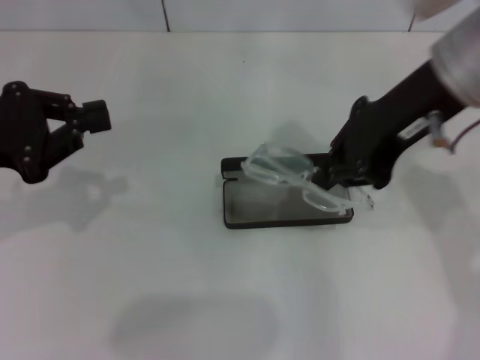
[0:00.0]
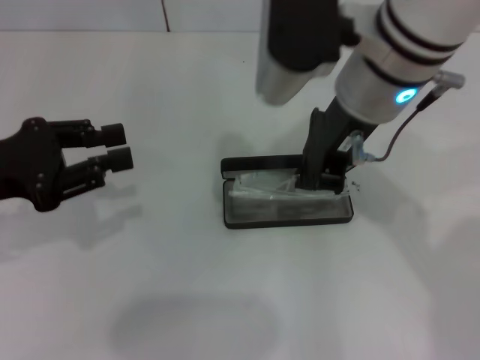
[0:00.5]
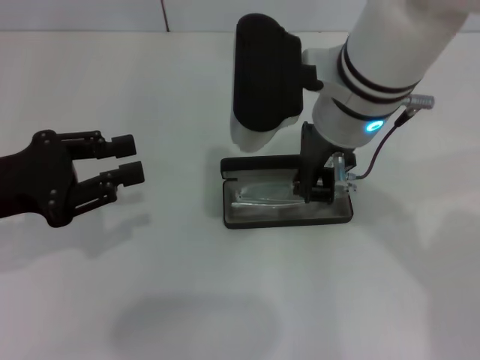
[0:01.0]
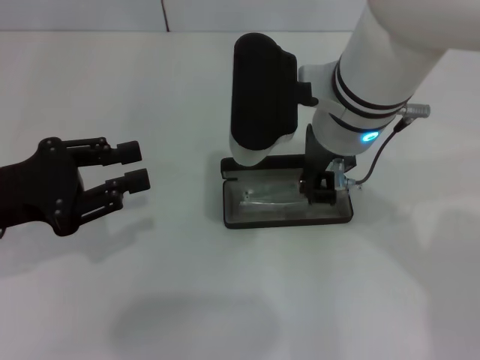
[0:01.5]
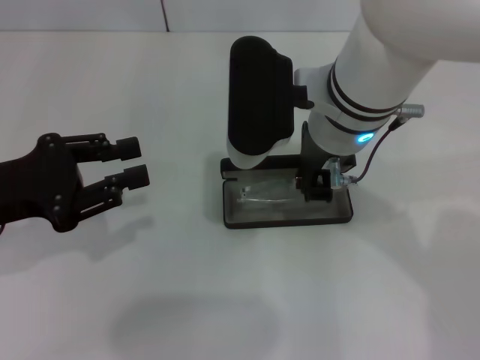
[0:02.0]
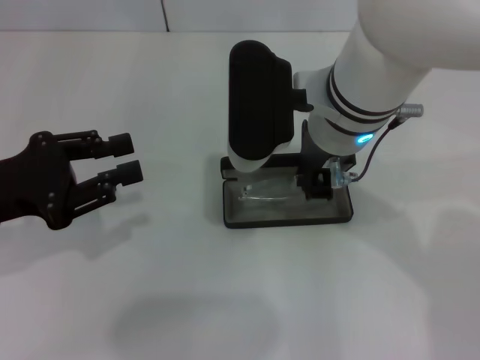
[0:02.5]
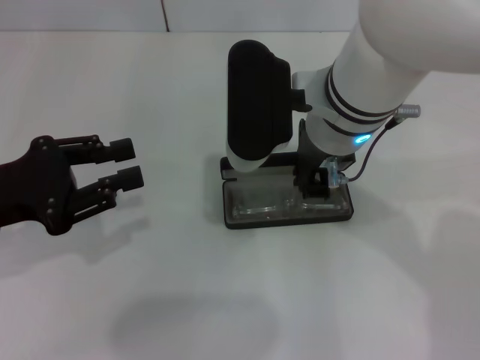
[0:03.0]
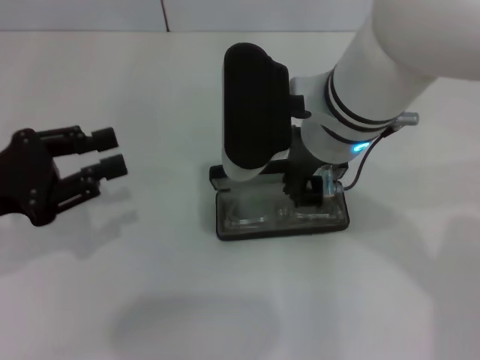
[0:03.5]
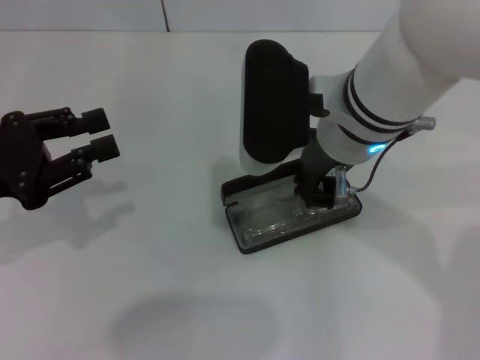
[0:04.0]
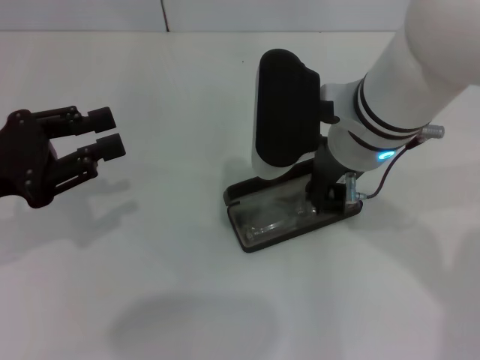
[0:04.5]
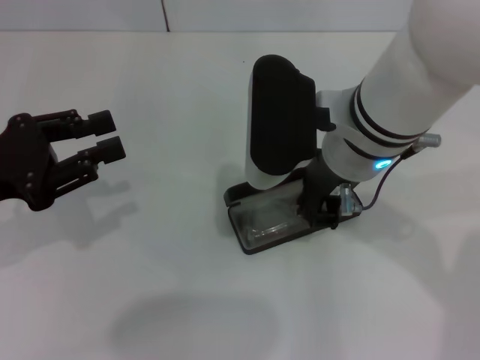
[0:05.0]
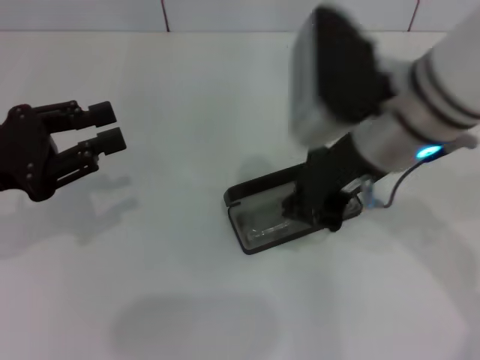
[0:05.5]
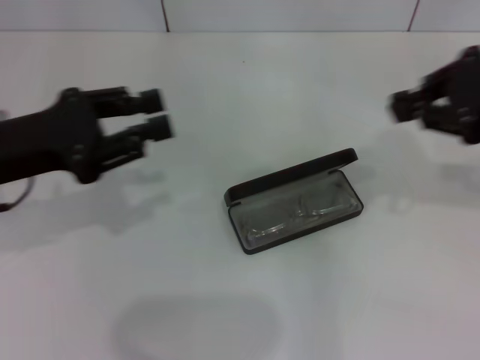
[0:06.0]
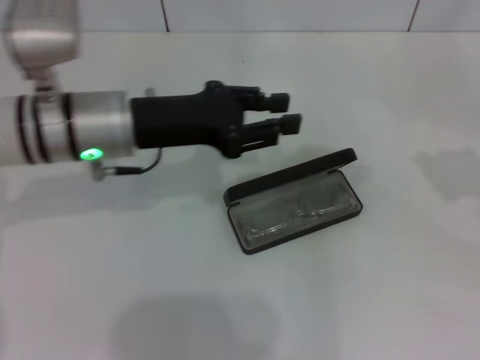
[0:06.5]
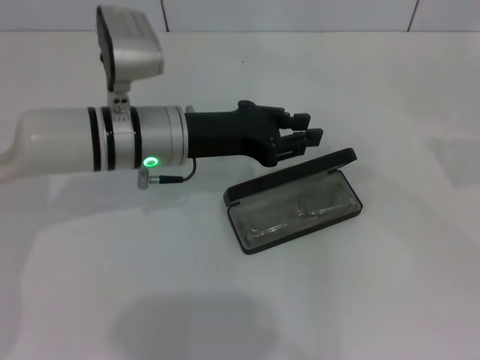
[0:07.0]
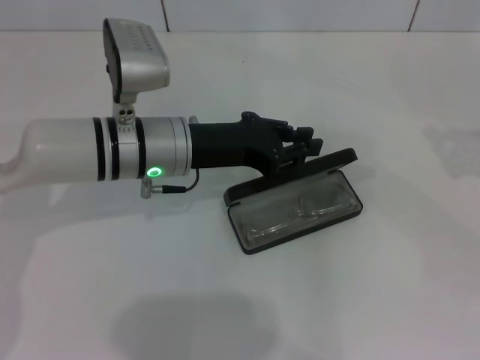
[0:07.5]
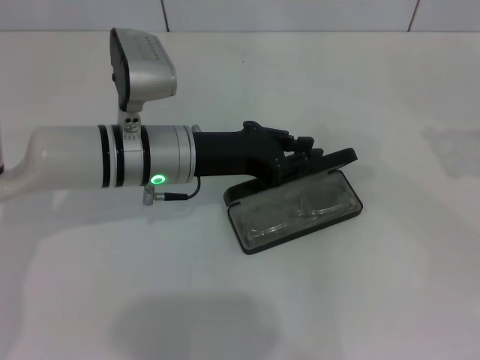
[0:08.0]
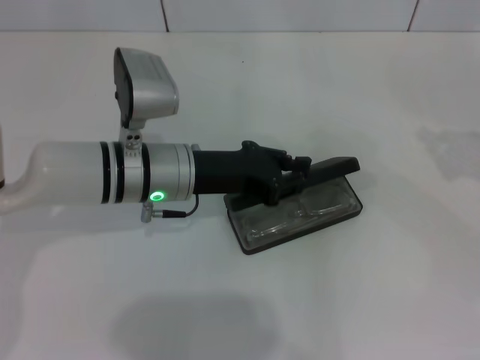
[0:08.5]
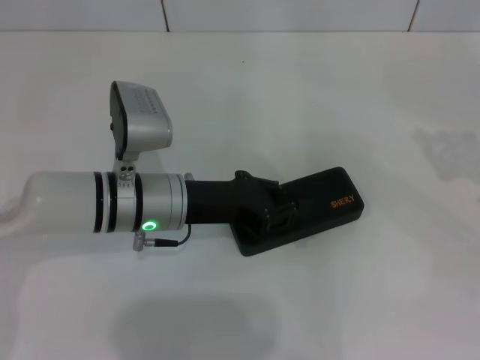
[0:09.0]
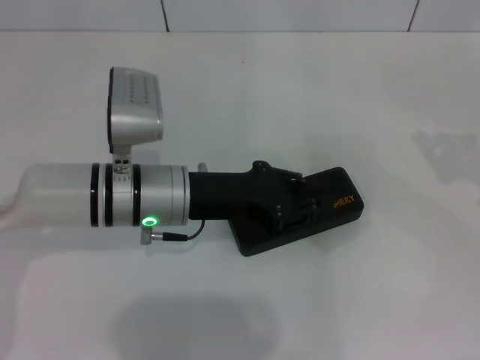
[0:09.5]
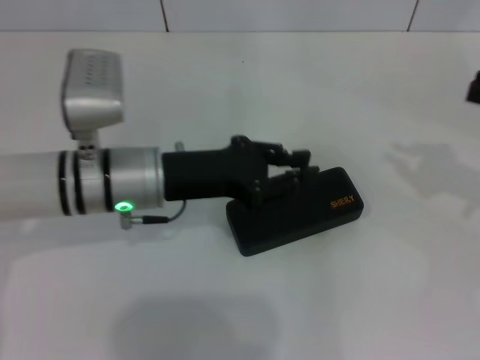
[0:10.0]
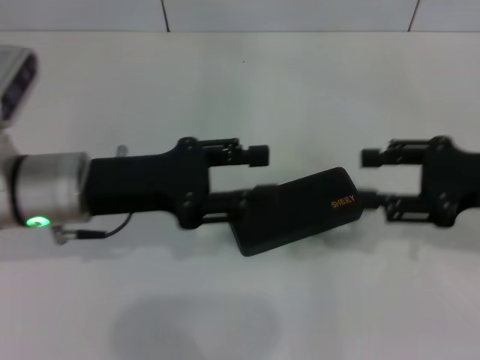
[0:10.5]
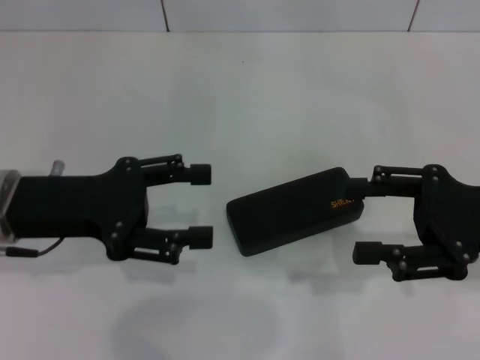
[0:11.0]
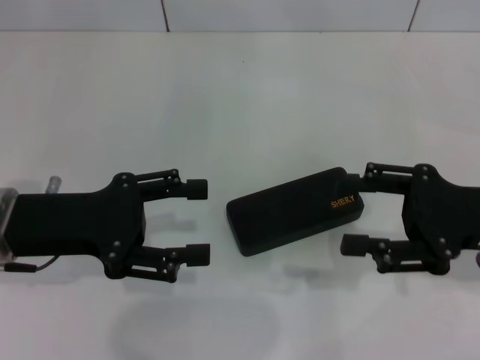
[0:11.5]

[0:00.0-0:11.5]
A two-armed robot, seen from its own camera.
Step, 0:00.0 to 0:05.5: Put the glasses into the case with your right hand.
Step, 0:06.0 to 0:09.0: Close the glasses case with your left hand.
0:00.0 to 0:02.0: The right gripper travels to the left and downward by roughly 10 cm; the left gripper opens its fingers.
0:02.0 to 0:04.0: There are only small adjustments of the grippers.
0:04.0 to 0:06.0: The right gripper shifts some 20 cm to the right.
0:06.0 to 0:07.5: The right gripper moves to the right and downward, about 15 cm, while the left gripper shifts roughly 15 cm to the right and forward.
0:07.5 to 0:09.5: The grippers stay close to where they were, moving slightly.
0:09.5 to 0:11.5: Both grippers travel together to the left, roughly 10 cm. The left gripper opens up. The right gripper opens up.

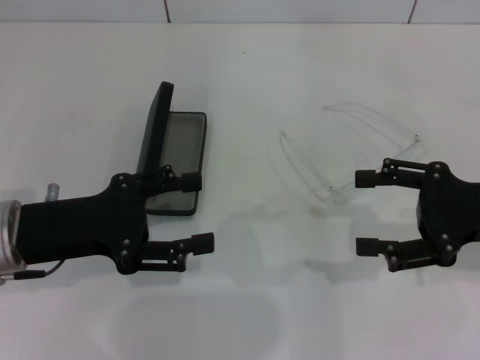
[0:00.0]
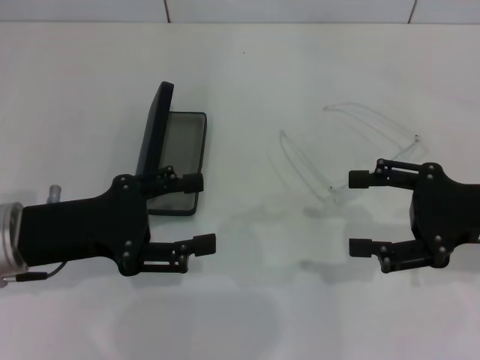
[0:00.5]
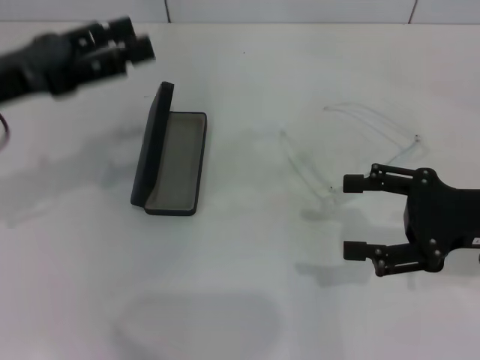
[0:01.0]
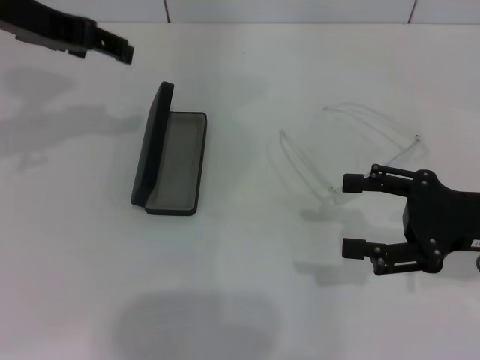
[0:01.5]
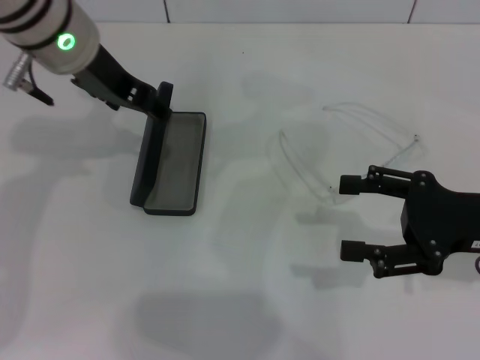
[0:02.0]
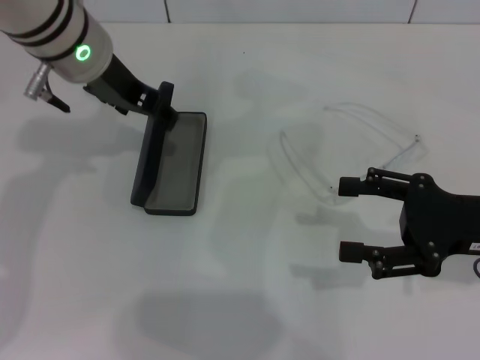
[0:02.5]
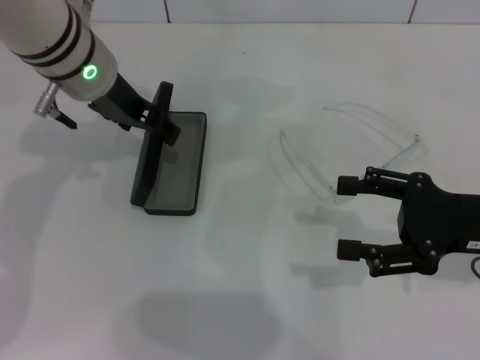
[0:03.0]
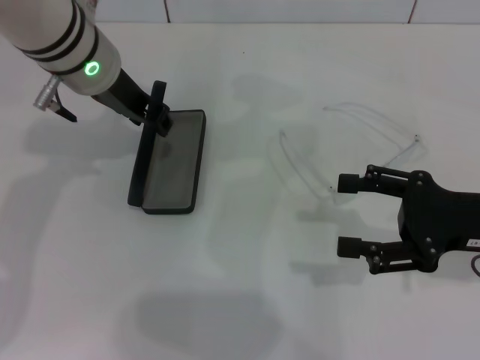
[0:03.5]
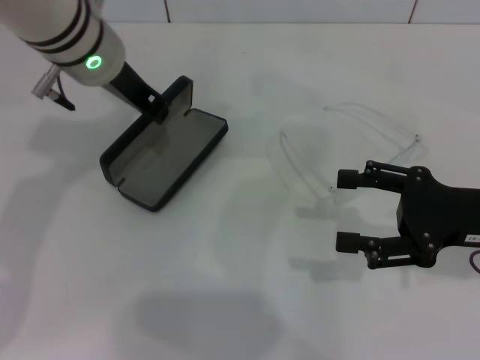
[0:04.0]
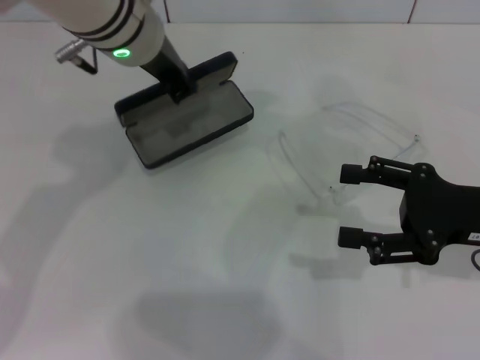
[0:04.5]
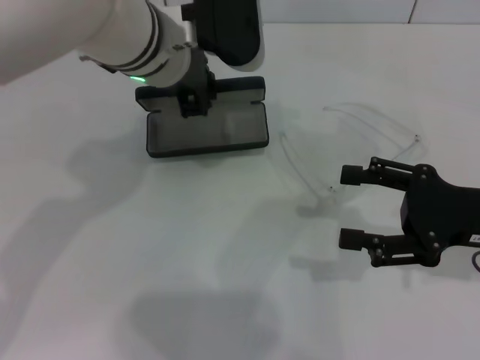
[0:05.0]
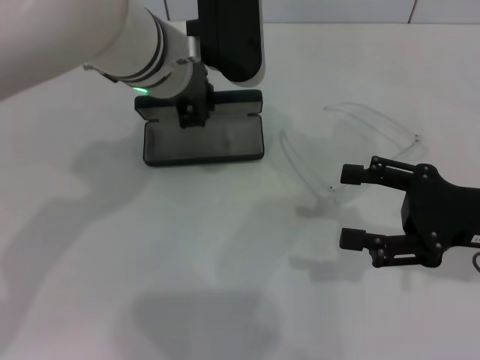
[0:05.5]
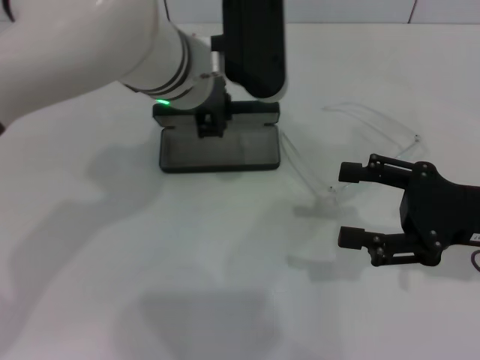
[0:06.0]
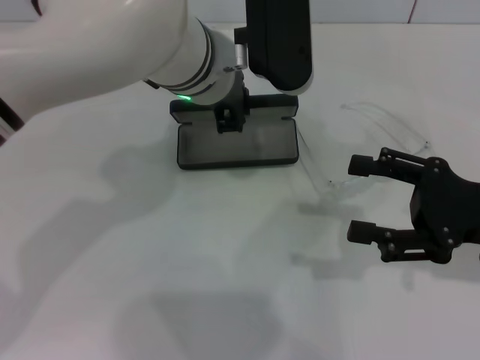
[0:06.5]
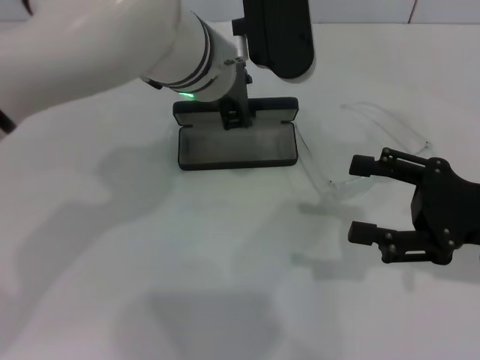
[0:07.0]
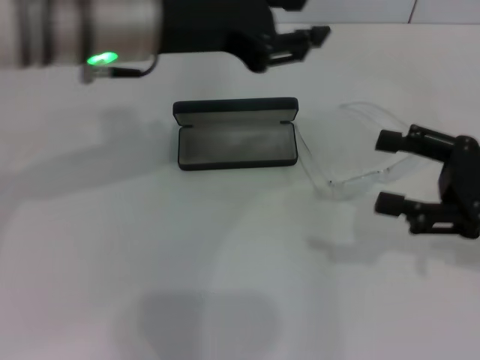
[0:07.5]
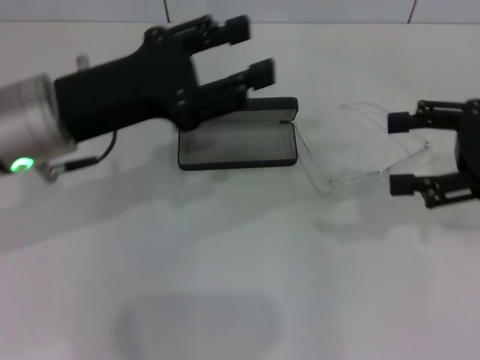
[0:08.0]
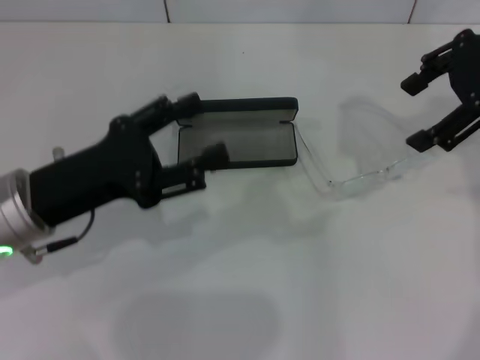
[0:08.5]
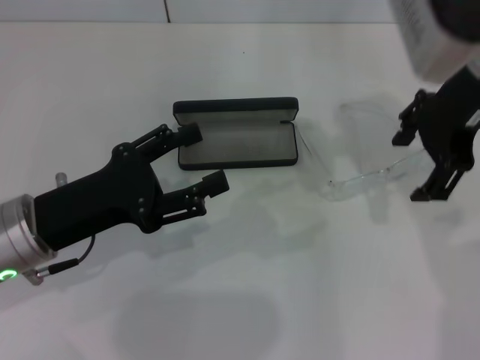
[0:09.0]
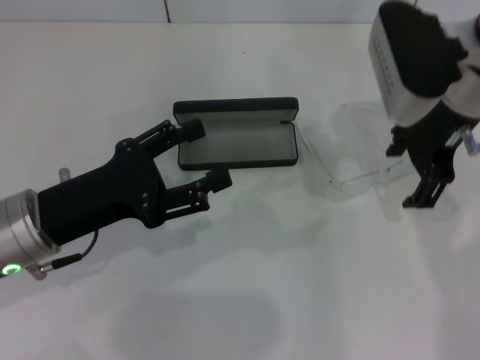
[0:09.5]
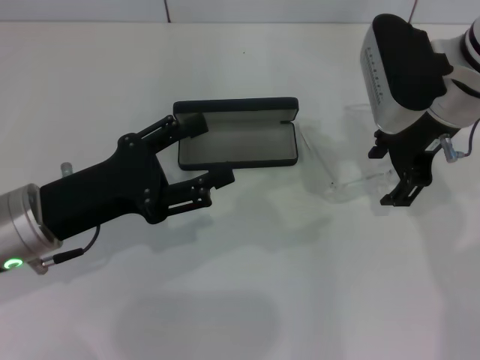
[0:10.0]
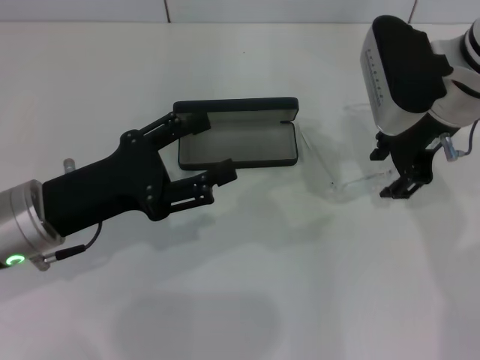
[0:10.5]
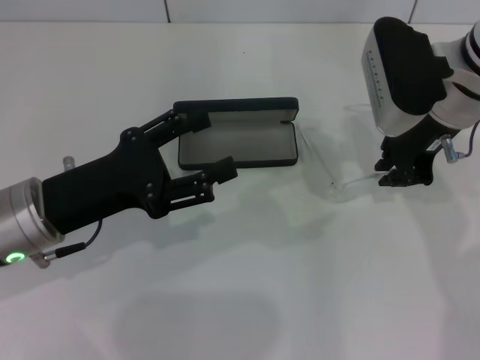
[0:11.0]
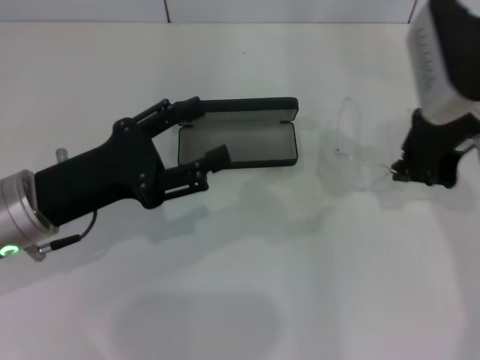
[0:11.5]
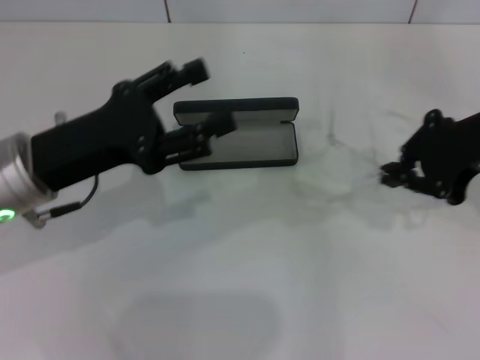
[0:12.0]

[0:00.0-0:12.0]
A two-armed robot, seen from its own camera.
Step, 0:00.0 to 0:03.5: Grab the glasses case with your left hand.
Step, 0:04.0 to 0:07.0: Place the glasses case in the center of the table with your left hand.
Step, 0:07.5 to 0:11.0: Grab the eyeglass frame with your right hand.
0:00.0 to 0:02.0: The left gripper travels forward, upward and to the right by about 20 cm.
0:02.0 to 0:04.0: The left gripper closes.
0:04.0 to 0:06.0: The left gripper moves to the right, approximately 10 cm.
0:06.0 to 0:08.0: The right gripper is displaced upward by some 10 cm, while the left gripper shifts some 15 cm to the left and backward, and opens up.
0:08.0 to 0:10.0: The right gripper heads to the left and forward, covering some 15 cm, while the left gripper shifts about 10 cm downward.
0:10.0 to 0:12.0: The right gripper moves to the right and backward, some 10 cm, and closes.

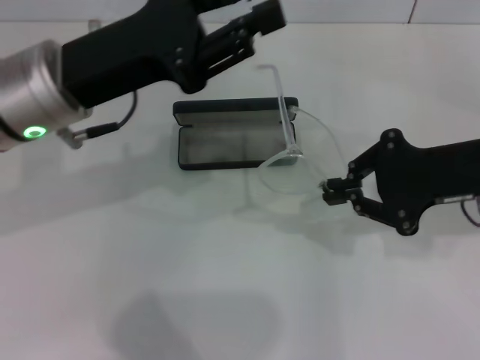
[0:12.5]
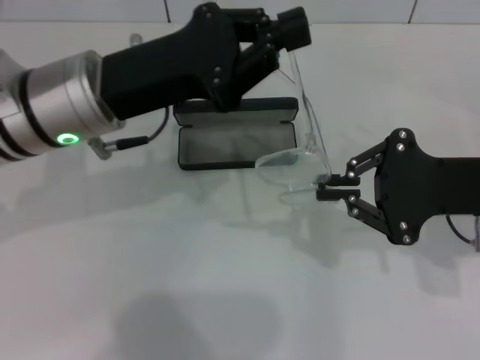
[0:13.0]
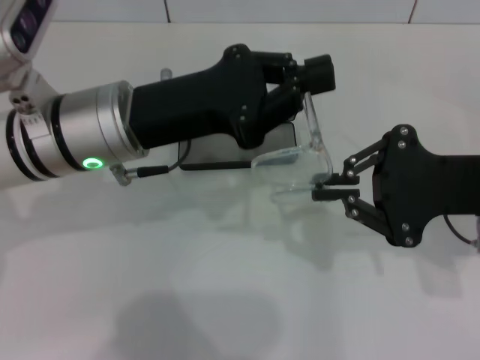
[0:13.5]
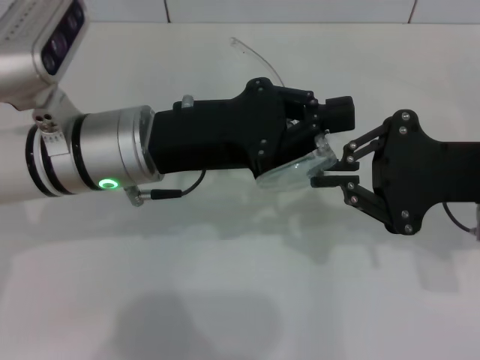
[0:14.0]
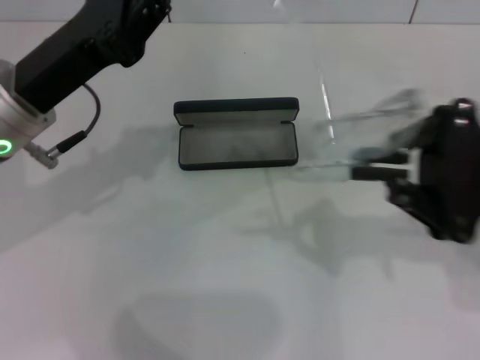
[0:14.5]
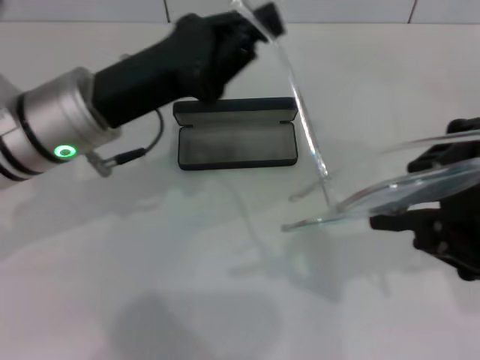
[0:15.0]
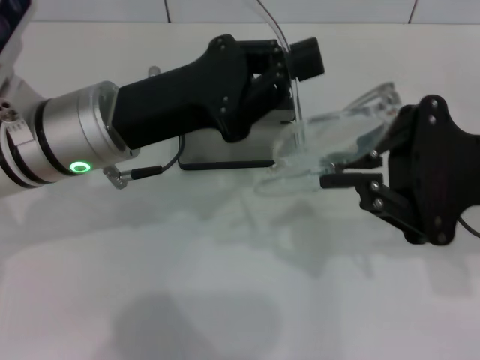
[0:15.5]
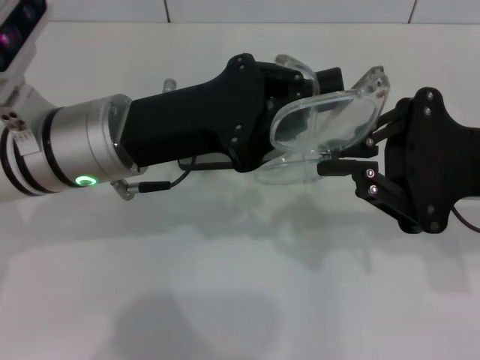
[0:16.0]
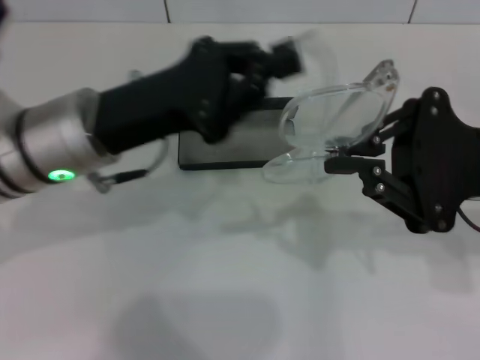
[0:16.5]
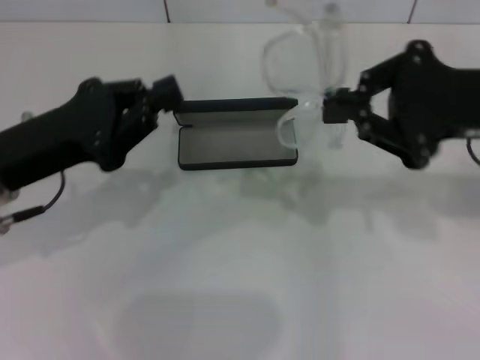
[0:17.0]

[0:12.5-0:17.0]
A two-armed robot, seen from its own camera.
Step, 0:12.5 to 0:16.0: Fold the frame with your left hand.
0:12.5 to 0:14.5: The left gripper closes its fingers.
0:14.5 to 0:17.0: The left gripper travels to the right and back again, about 5 cm each way, while the right gripper moves some 5 cm.
